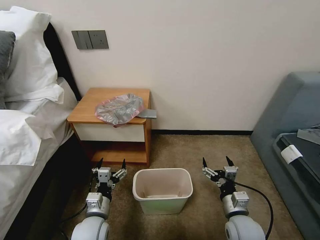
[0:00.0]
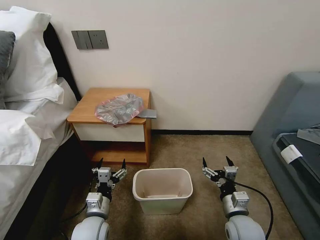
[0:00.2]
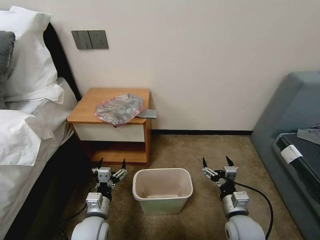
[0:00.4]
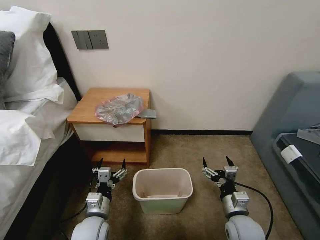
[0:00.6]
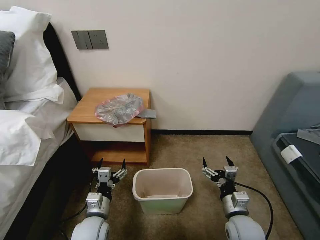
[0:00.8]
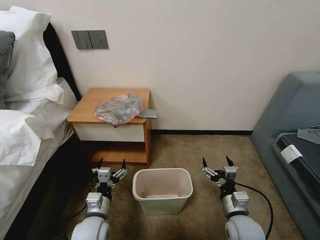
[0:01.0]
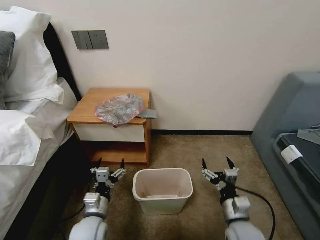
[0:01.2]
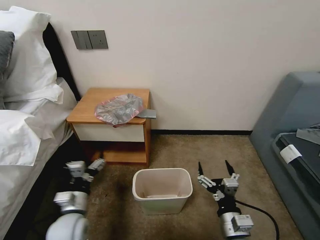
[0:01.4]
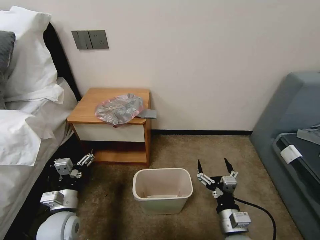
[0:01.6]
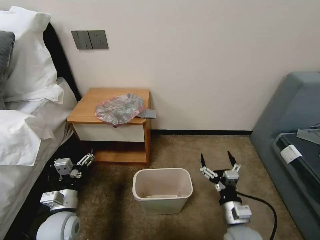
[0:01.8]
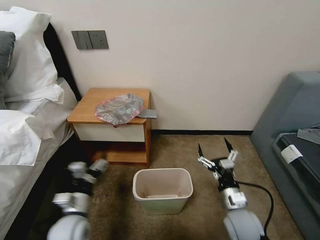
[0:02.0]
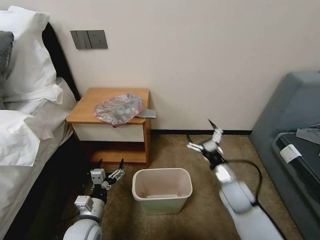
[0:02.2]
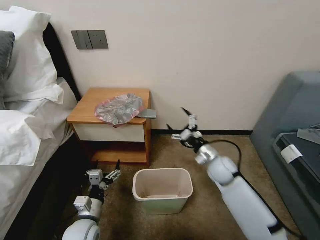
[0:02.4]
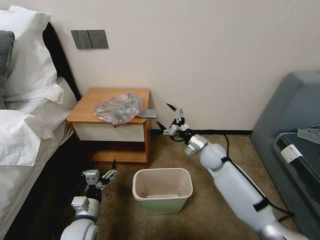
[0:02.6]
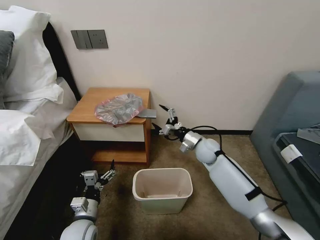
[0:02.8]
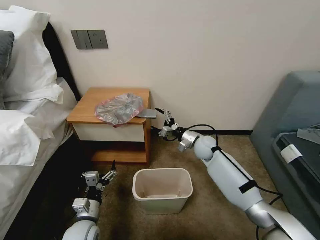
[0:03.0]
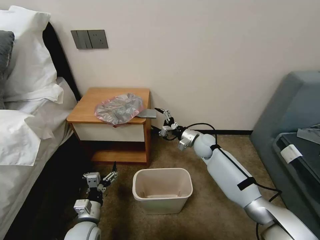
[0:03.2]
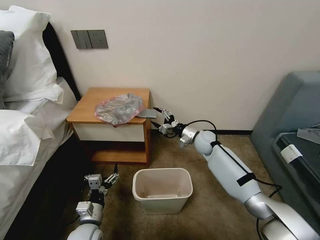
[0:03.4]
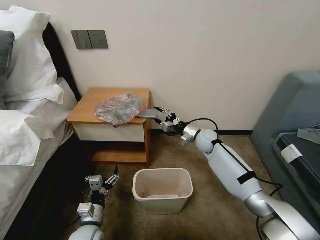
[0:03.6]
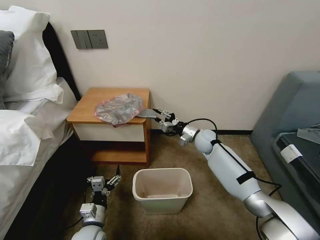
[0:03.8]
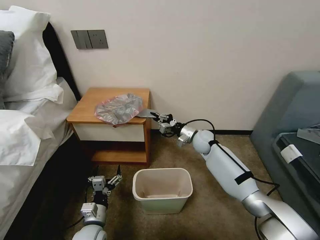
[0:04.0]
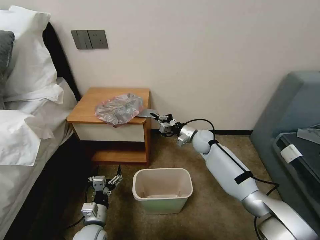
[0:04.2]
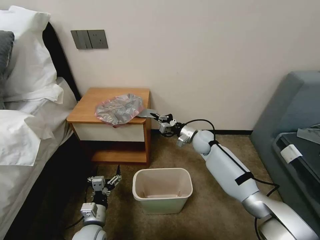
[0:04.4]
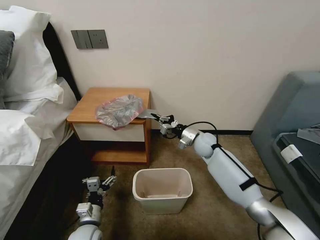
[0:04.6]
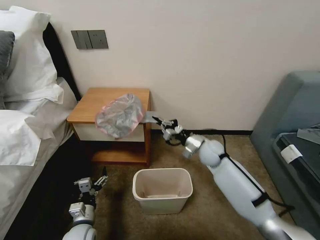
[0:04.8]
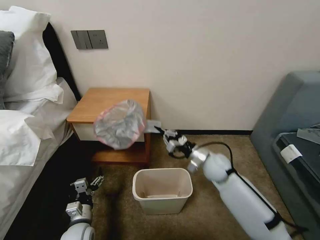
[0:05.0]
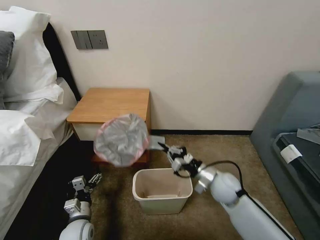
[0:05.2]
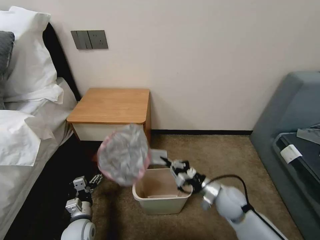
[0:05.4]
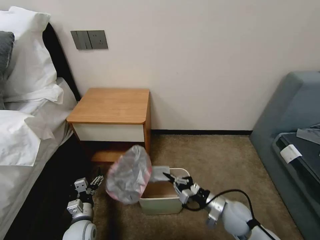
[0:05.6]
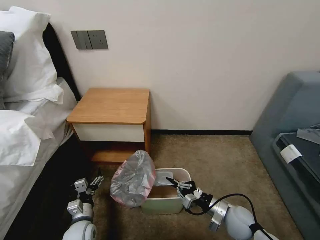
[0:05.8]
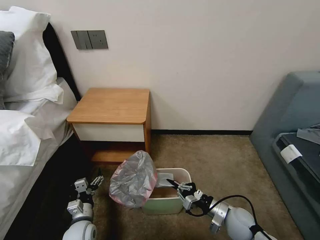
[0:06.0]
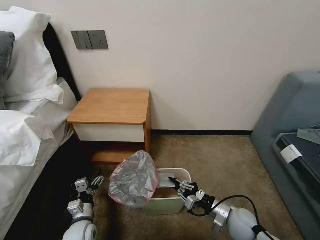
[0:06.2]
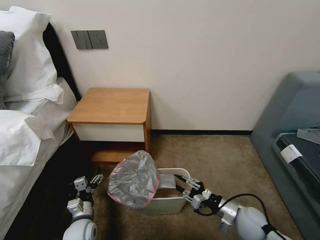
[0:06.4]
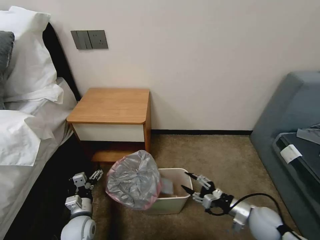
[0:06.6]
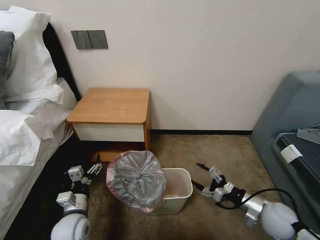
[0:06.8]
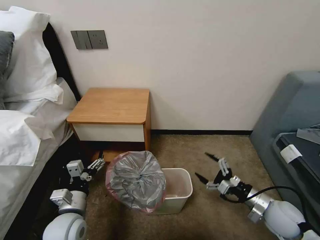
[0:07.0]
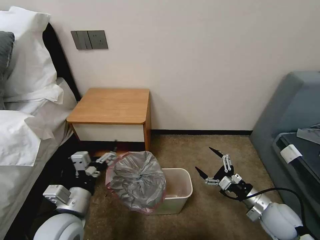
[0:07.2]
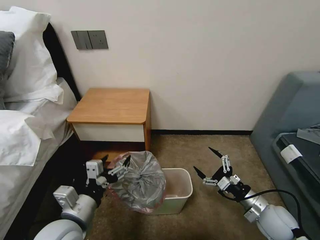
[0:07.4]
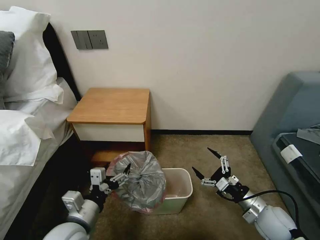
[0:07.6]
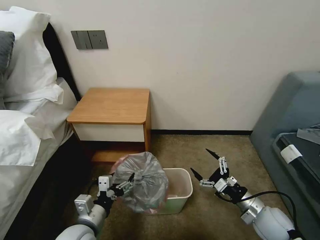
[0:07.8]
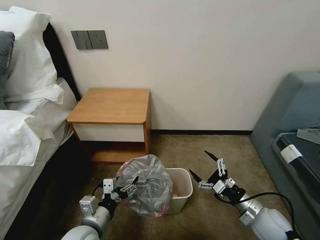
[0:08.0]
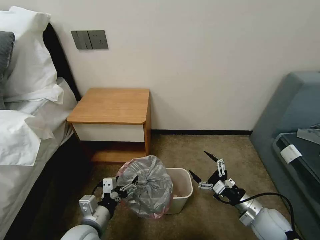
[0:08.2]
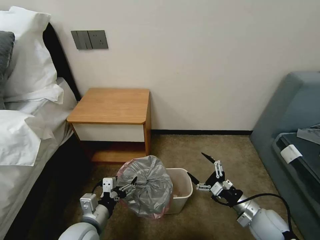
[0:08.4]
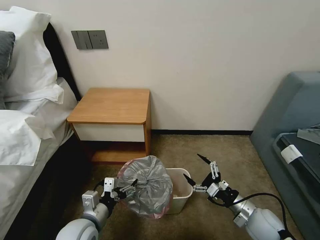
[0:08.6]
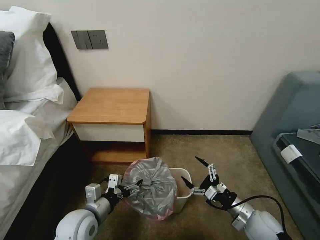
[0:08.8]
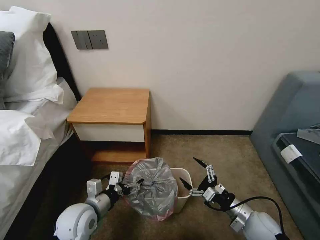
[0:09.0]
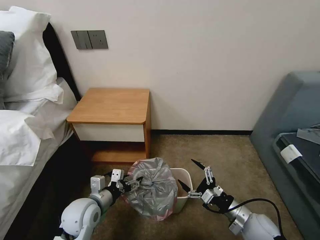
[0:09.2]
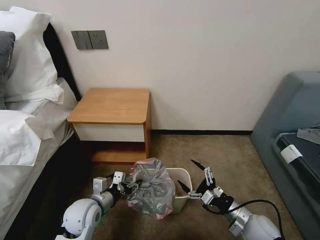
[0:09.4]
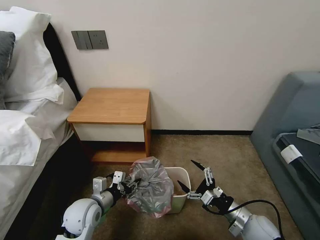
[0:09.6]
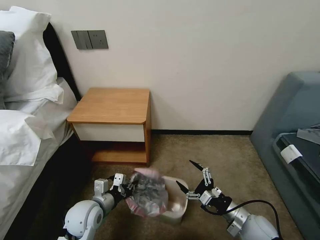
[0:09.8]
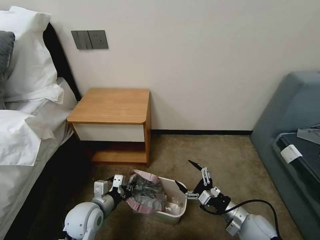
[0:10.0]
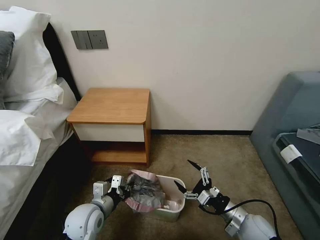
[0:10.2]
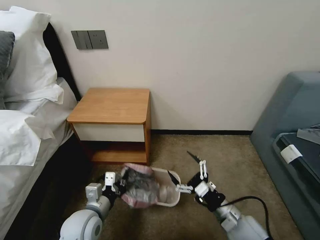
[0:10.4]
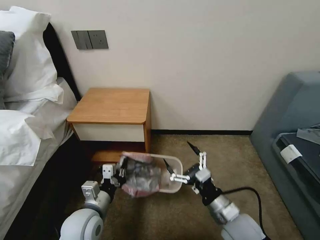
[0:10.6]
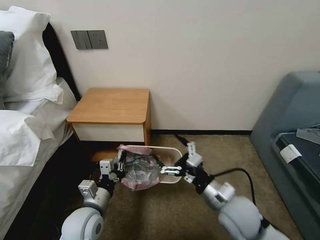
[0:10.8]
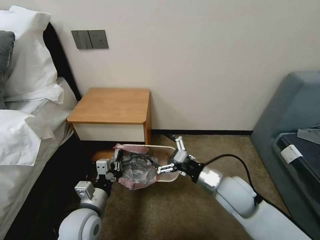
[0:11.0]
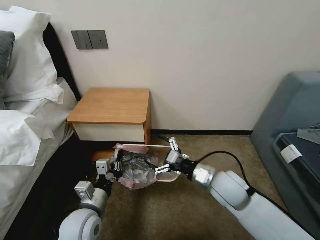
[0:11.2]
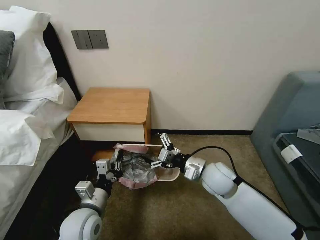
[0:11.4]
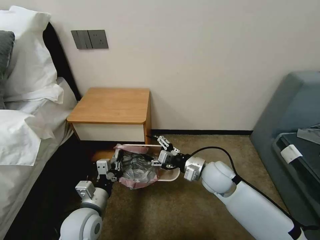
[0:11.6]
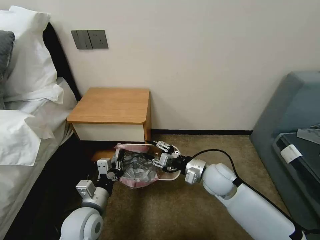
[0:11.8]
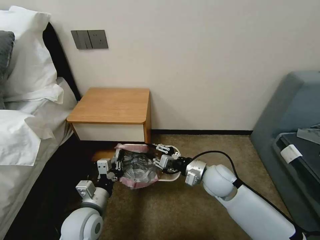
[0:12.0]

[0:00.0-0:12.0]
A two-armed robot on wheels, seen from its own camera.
Task of the whole recording: Pick up the garbage bag from the table and place it over the trash can.
0:01.6 to 0:03.0: The left gripper goes some 5 cm downward. Meanwhile the right gripper is displaced forward by roughly 35 cm.
0:03.0 to 0:04.4: The right gripper closes.
0:04.4 to 0:06.0: The left gripper goes about 5 cm to the left. Meanwhile the right gripper goes roughly 30 cm backward.
0:06.0 to 0:07.6: The left gripper travels upward by roughly 15 cm. Meanwhile the right gripper is displaced to the right and upward by about 10 cm, and opens its fingers.
0:07.6 to 0:09.0: The left gripper travels forward by some 5 cm.
0:09.0 to 0:10.4: The right gripper moves about 5 cm. Meanwhile the left gripper closes.
0:10.4 to 0:12.0: The right gripper shifts some 15 cm forward, upward and to the left, and closes its fingers.

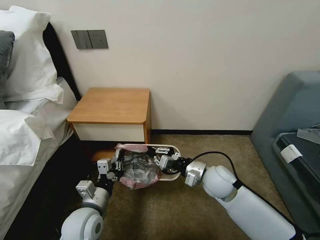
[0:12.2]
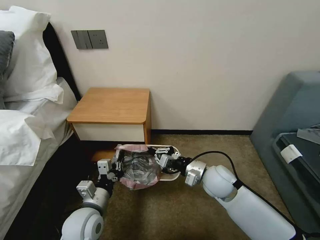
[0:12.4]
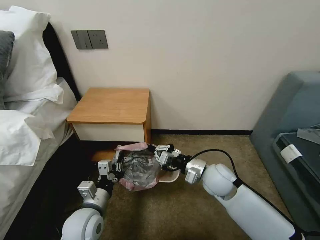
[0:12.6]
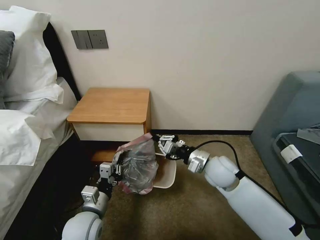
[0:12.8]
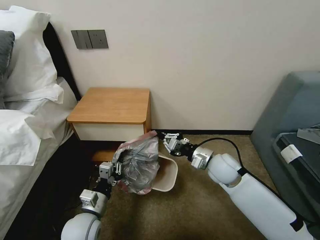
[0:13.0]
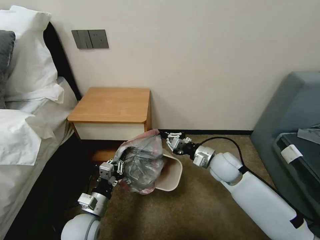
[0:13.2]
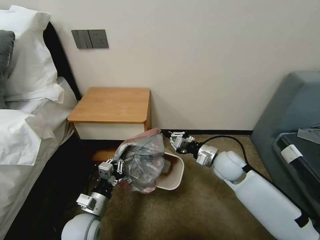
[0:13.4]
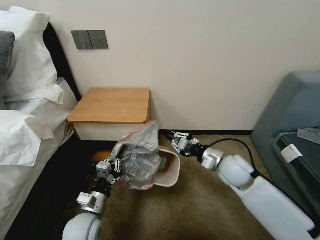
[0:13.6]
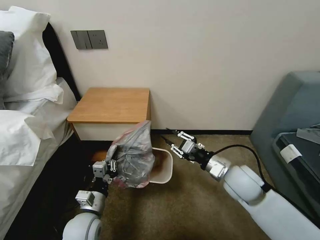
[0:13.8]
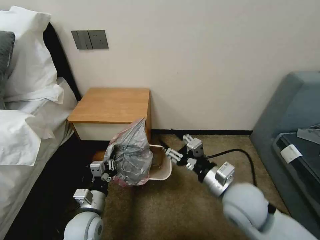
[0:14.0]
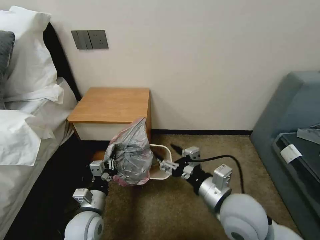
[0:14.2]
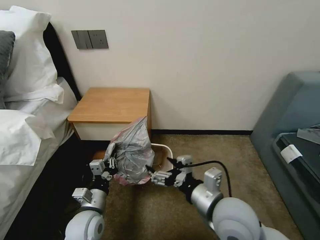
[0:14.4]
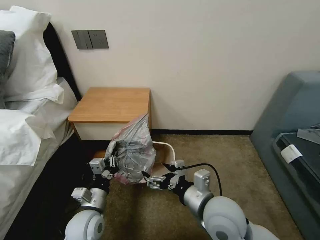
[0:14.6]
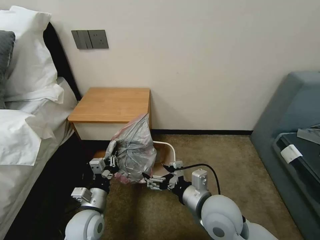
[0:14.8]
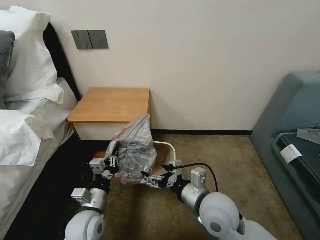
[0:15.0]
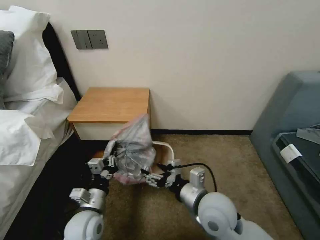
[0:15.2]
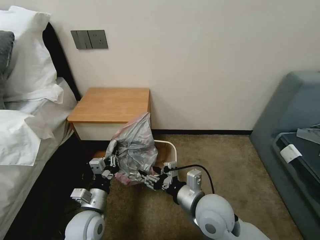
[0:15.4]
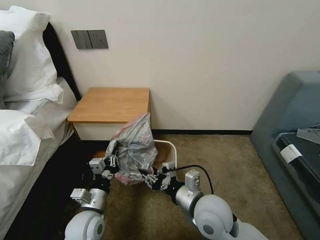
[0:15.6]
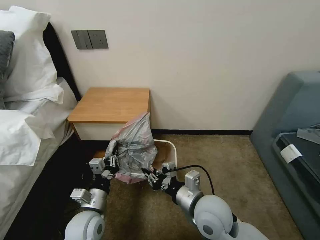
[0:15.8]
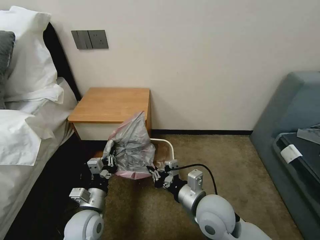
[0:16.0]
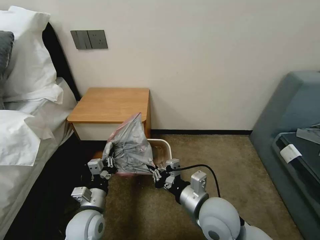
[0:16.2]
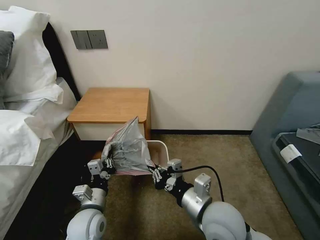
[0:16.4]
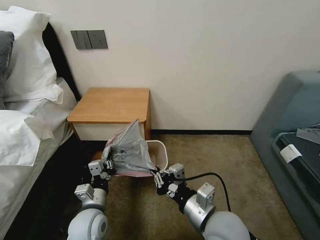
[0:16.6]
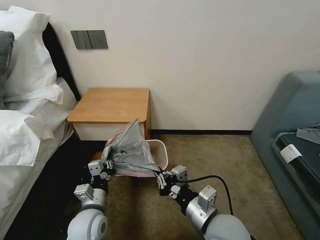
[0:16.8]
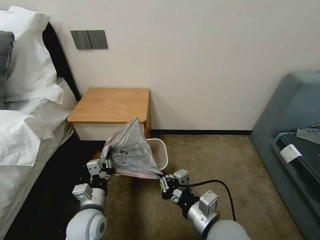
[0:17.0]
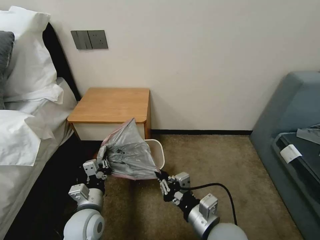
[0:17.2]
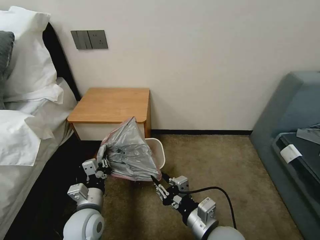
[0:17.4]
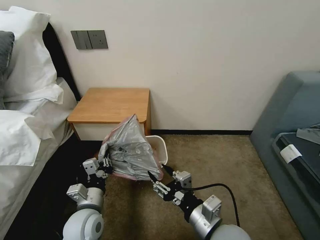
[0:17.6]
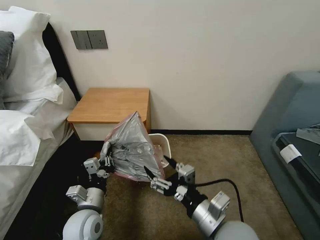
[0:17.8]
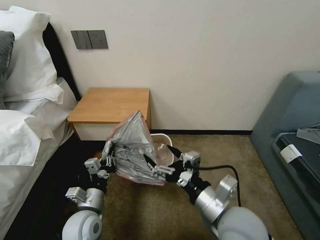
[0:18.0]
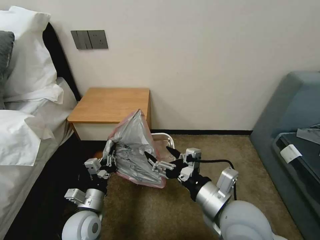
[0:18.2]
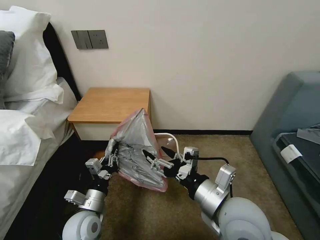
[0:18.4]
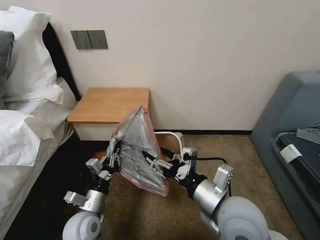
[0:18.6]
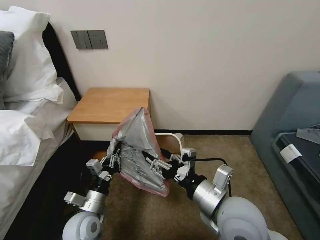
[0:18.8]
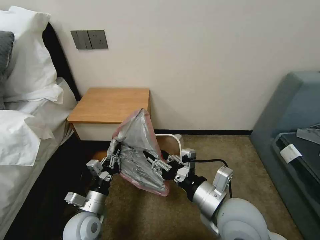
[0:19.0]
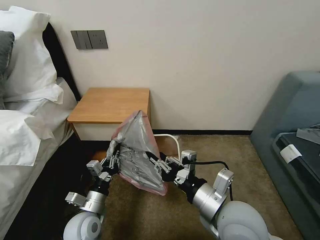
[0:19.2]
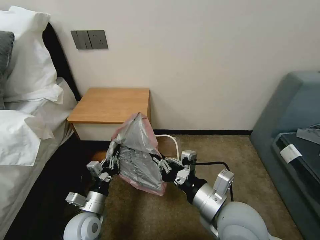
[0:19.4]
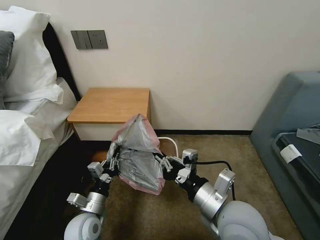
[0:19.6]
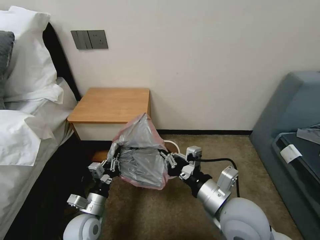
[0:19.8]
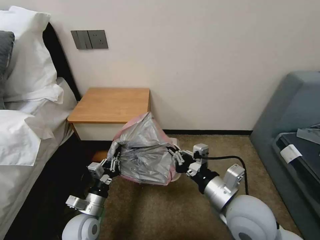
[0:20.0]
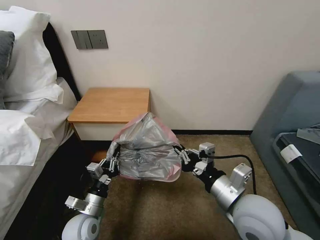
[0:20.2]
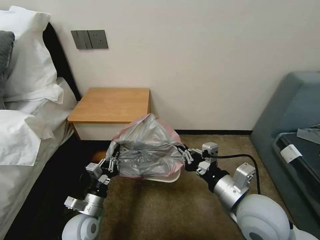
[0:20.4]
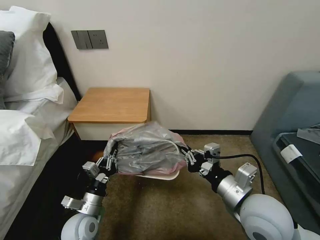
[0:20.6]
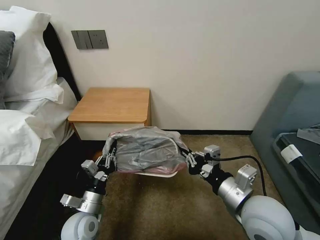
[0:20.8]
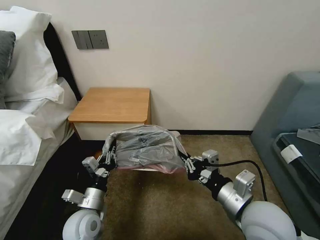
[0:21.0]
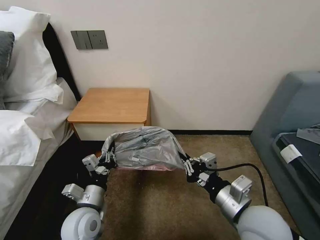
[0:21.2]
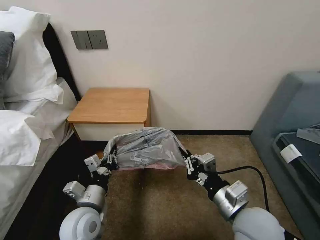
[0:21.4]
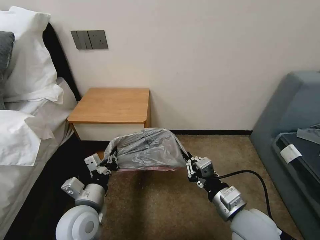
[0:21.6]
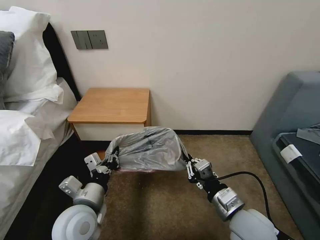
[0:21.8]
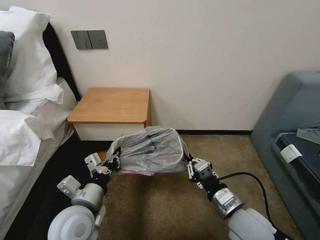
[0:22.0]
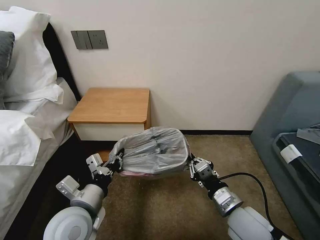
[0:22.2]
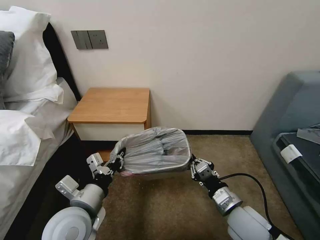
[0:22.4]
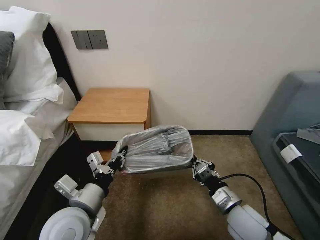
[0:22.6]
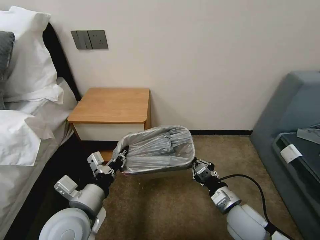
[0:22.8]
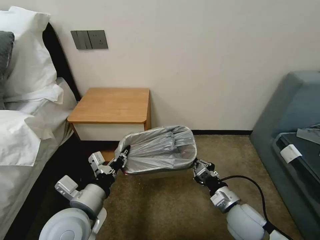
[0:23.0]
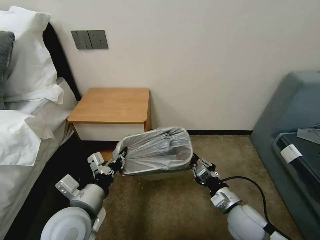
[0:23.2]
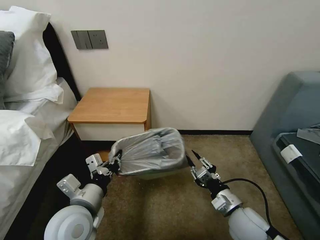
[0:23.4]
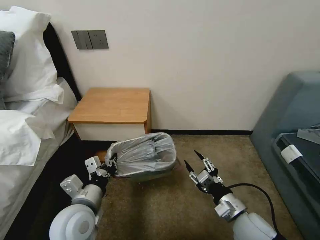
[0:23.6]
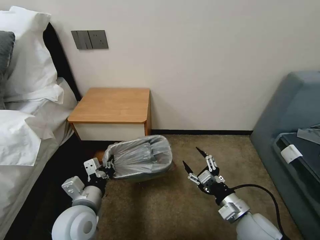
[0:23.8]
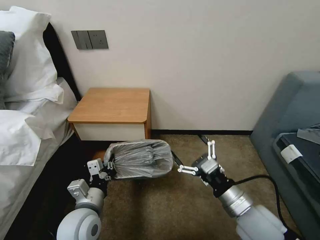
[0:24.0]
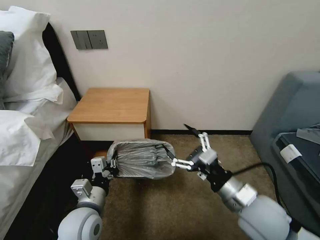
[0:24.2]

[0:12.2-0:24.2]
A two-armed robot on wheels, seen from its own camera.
Task of the whole recording: Pick up the garbage bag from the table and place it over the trash can.
0:12.2 to 0:13.8: The right gripper heads to the right, covering about 5 cm. Meanwhile the left gripper shifts by roughly 5 cm.
0:13.8 to 0:15.2: The right gripper goes some 15 cm to the left and backward, and opens up.
0:15.2 to 0:16.6: The right gripper moves about 5 cm, and closes up.
0:16.6 to 0:18.2: The right gripper moves upward, approximately 5 cm, and opens.
0:18.2 to 0:19.8: The right gripper closes.
0:19.8 to 0:21.2: The left gripper heads upward, covering roughly 5 cm.
0:21.2 to 0:22.6: The left gripper shifts roughly 10 cm upward; the right gripper shifts some 10 cm downward.
0:22.6 to 0:24.2: The left gripper goes roughly 5 cm downward; the right gripper shifts some 10 cm upward, and opens its fingers.
